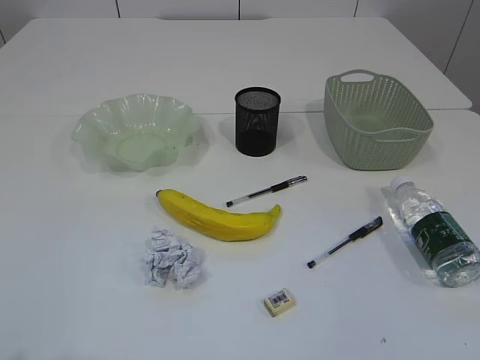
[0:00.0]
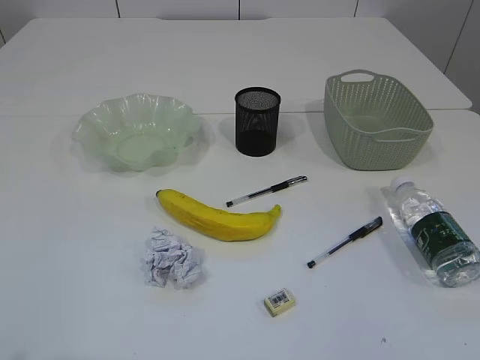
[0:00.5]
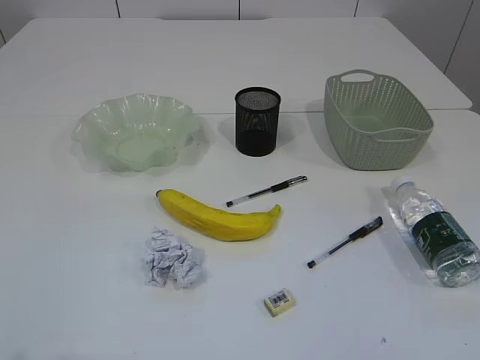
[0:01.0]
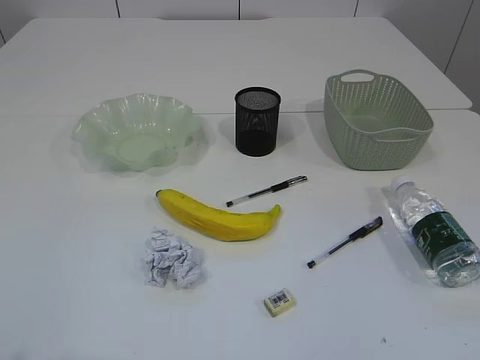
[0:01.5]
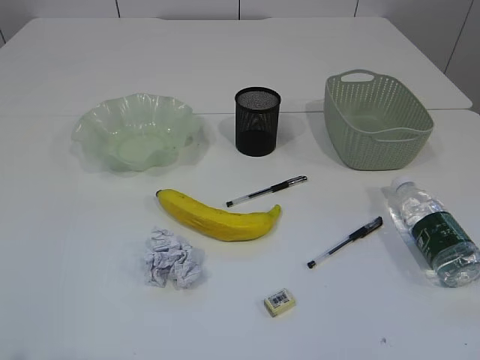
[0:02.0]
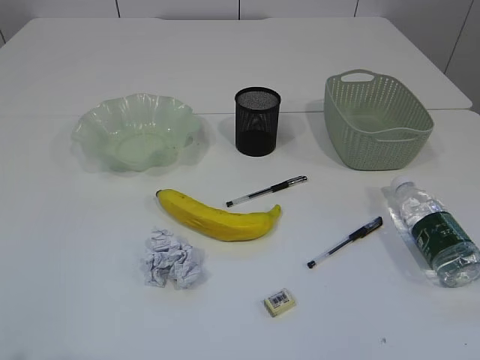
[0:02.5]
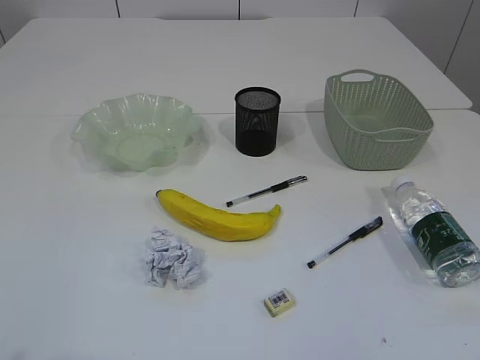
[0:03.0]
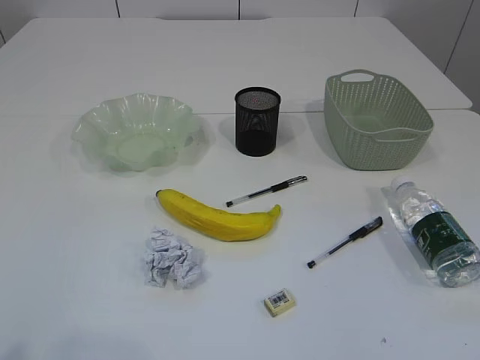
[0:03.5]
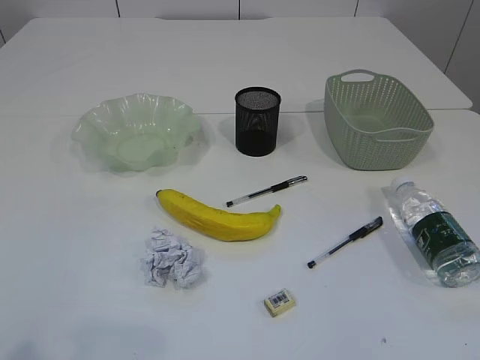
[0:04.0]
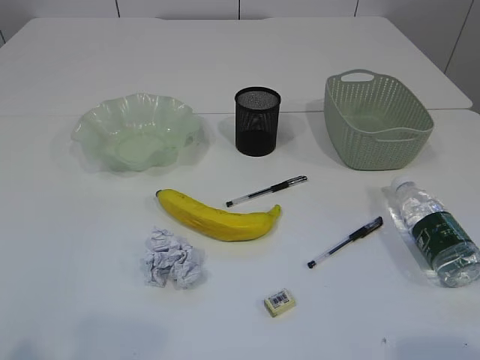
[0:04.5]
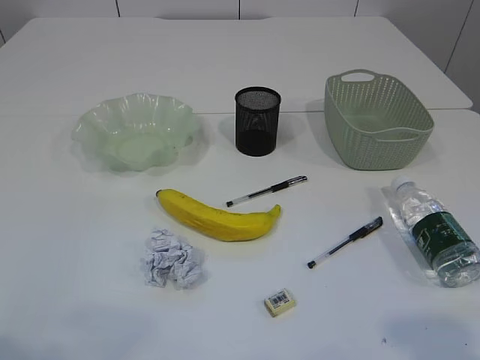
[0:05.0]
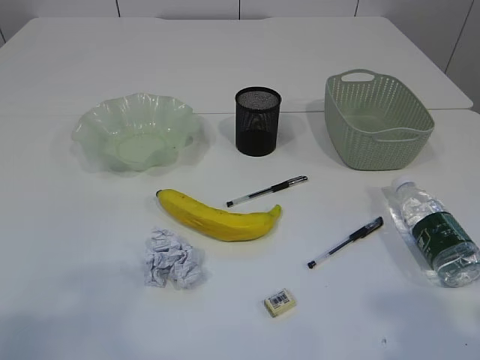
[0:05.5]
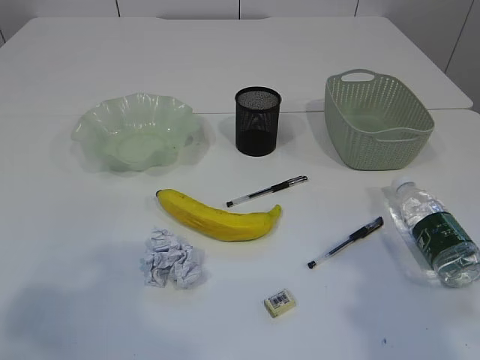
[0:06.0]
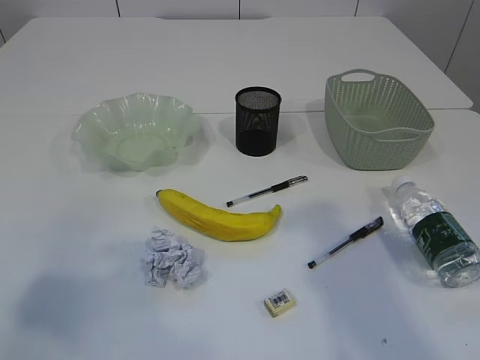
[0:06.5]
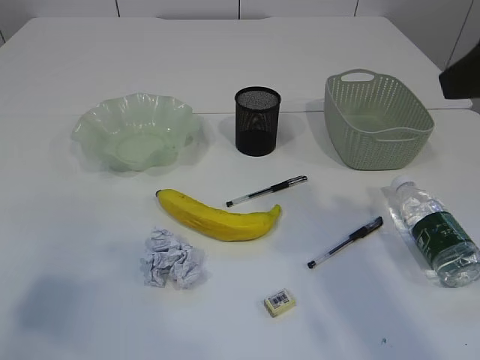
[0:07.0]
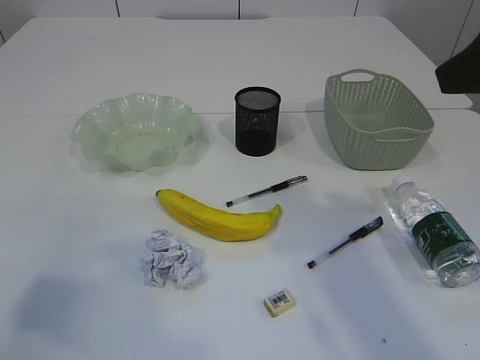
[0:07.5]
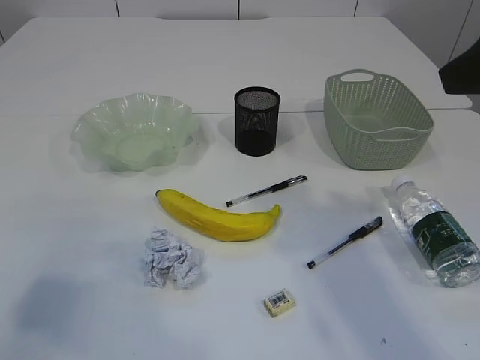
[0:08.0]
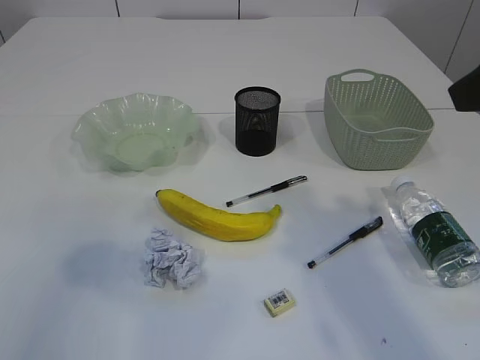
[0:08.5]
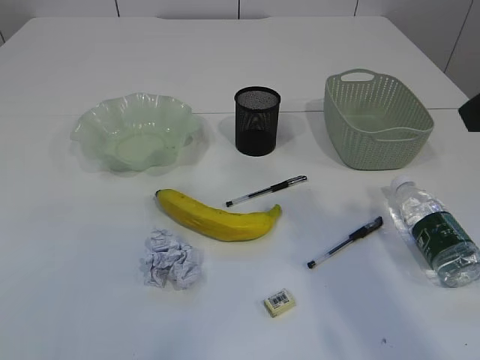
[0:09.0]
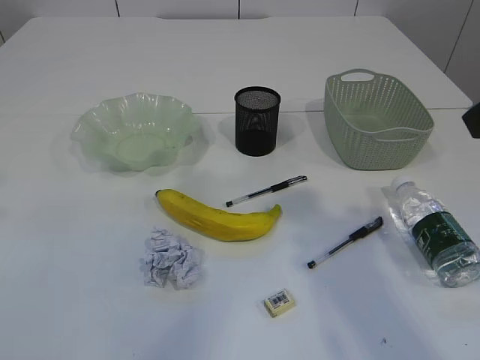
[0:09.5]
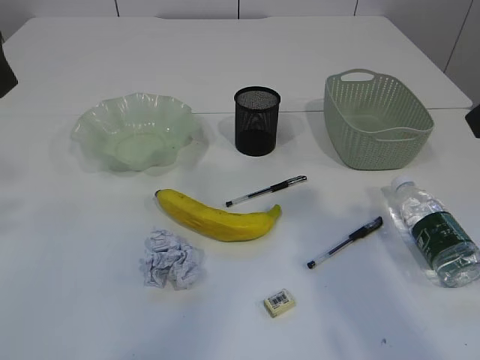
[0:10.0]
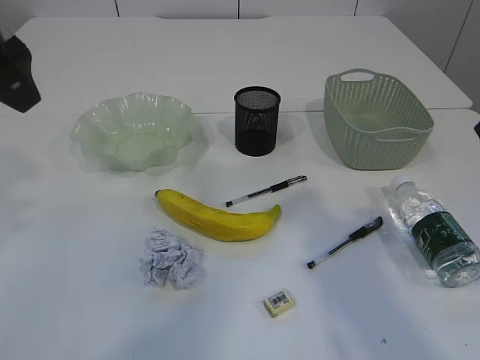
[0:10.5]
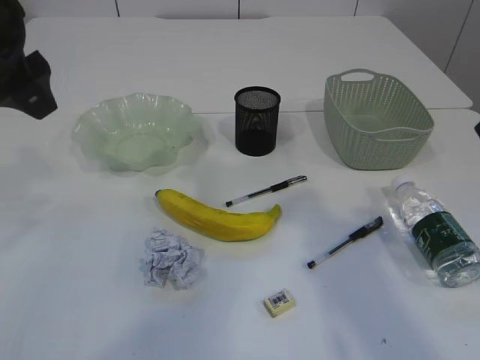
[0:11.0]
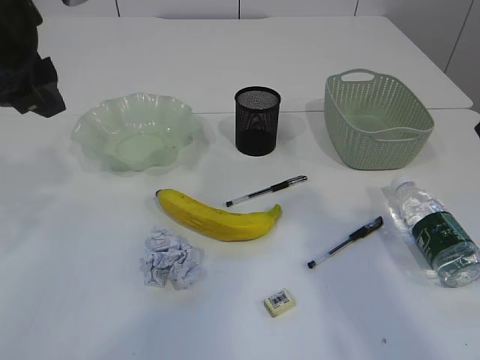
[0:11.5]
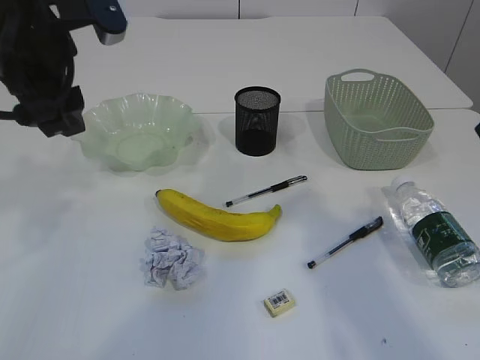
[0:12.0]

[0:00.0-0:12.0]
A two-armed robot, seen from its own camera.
0:04.0 to 0:06.0: The left gripper goes roughly 10 cm forward. Meanwhile the right gripper heads forward and upward, covering approximately 15 cm.
0:06.0 to 0:08.0: The right gripper goes approximately 10 cm forward.
0:08.0 to 0:10.0: The left gripper moves forward and to the right, approximately 20 cm.
0:10.0 to 0:12.0: The left gripper heads downward and forward, covering approximately 10 cm.

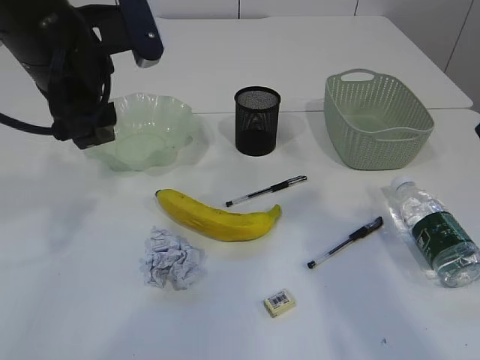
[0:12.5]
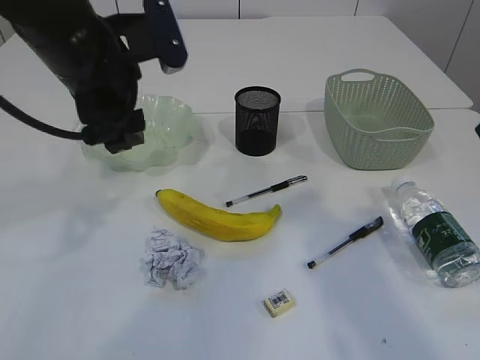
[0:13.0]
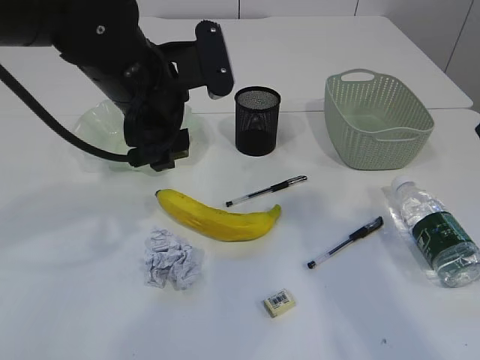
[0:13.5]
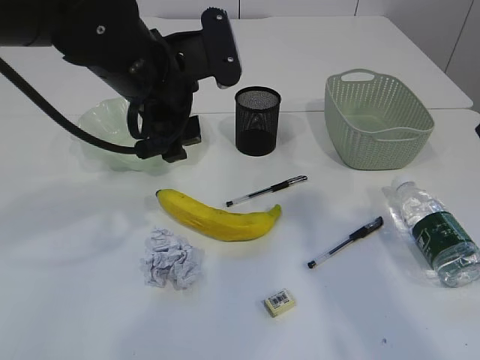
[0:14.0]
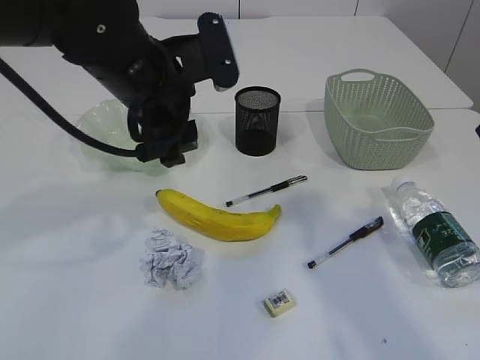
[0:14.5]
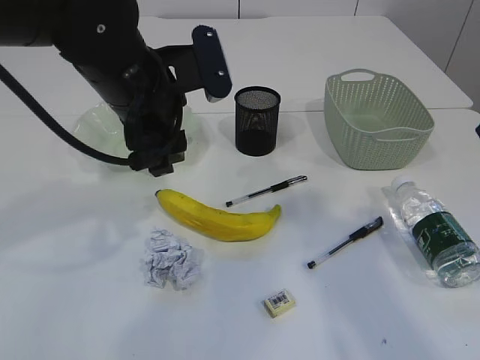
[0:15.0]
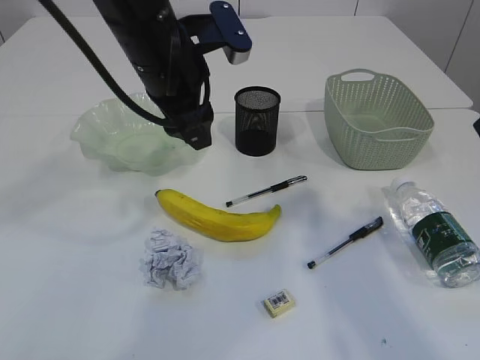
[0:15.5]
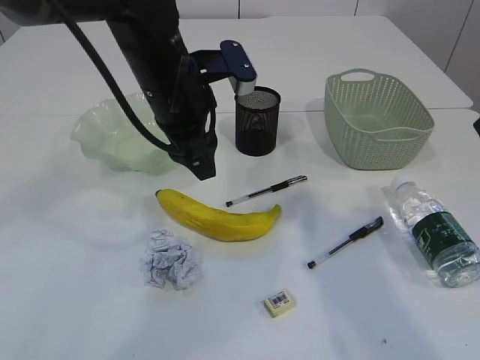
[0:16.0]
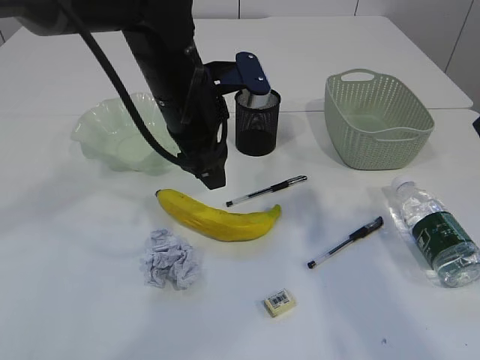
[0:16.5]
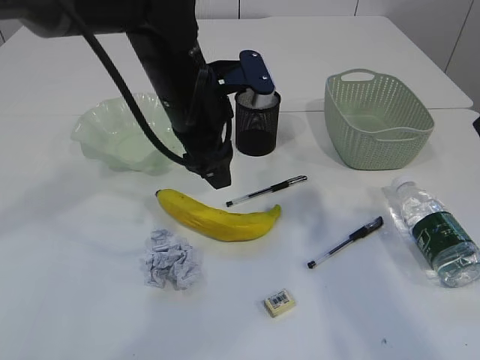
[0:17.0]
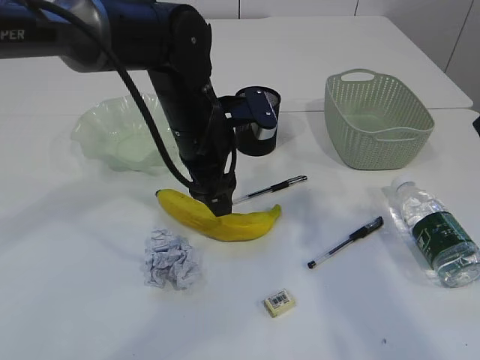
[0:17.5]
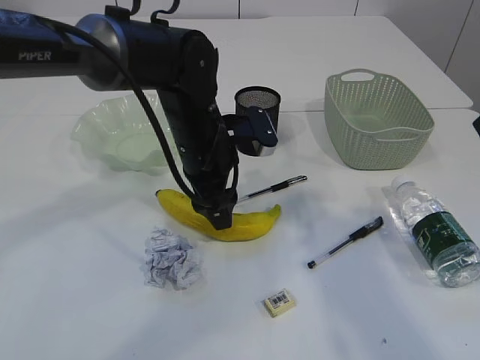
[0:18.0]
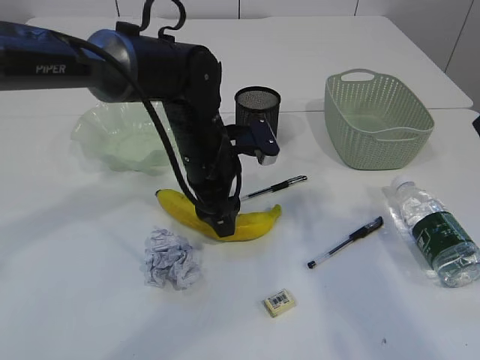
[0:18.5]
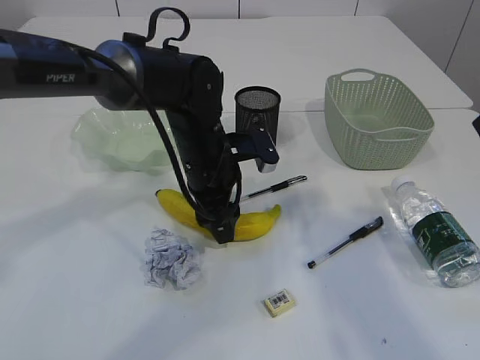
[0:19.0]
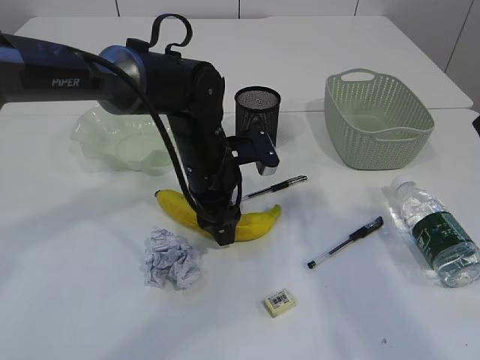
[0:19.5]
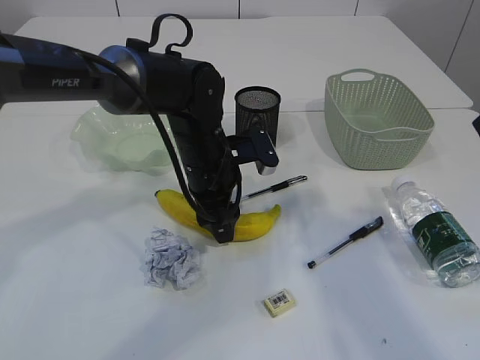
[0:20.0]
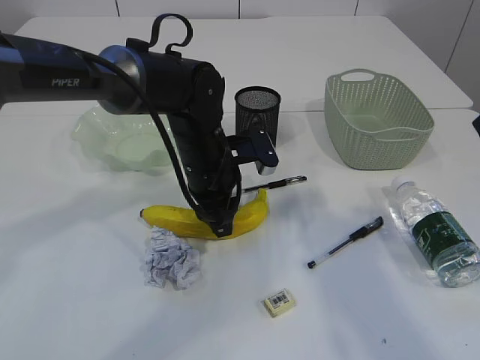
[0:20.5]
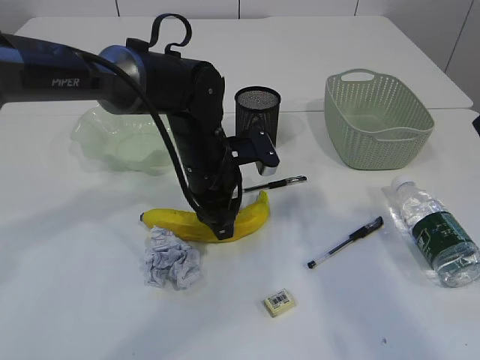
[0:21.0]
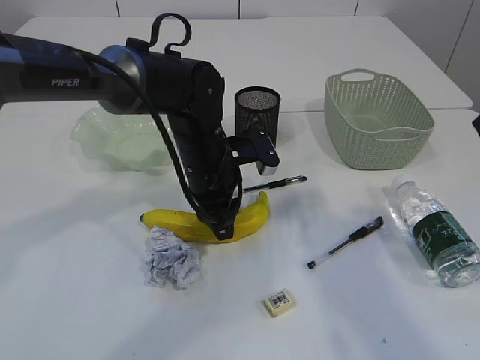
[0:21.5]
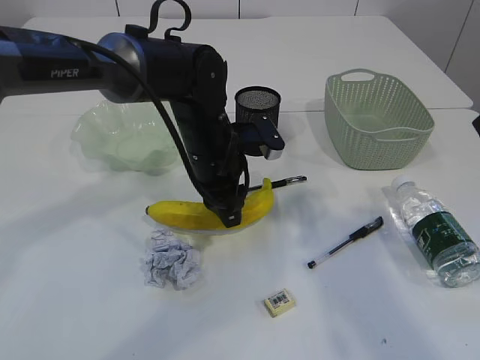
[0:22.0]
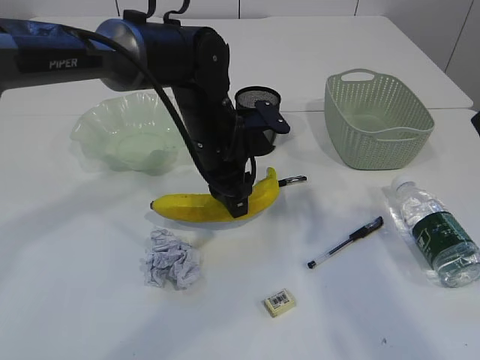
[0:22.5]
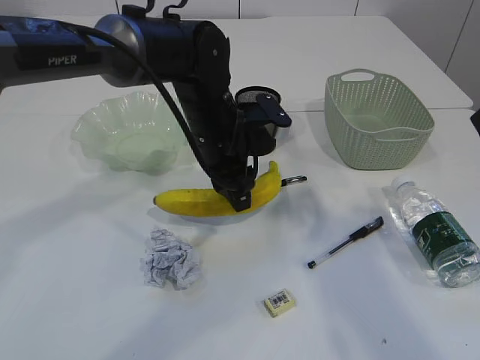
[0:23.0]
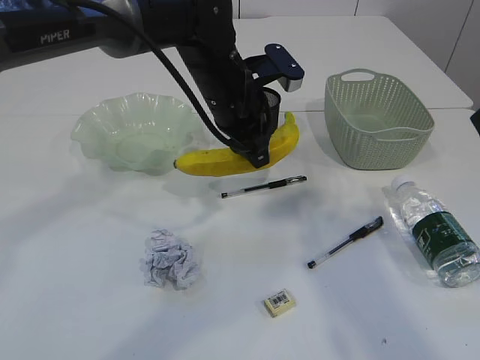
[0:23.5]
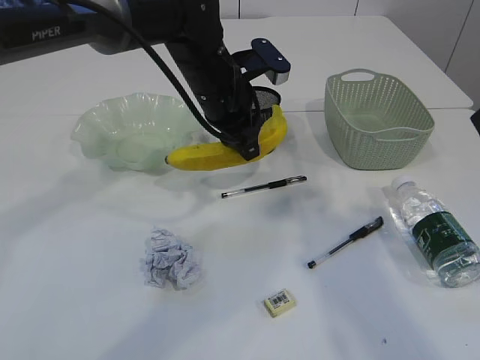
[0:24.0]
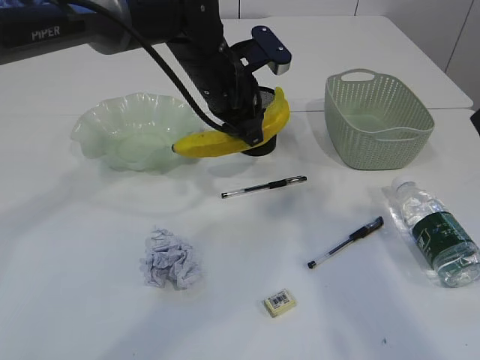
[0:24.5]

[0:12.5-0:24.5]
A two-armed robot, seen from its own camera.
0:12.5 to 0:14.5: The left gripper travels to the right by roughly 5 cm.
0:14.5 to 0:16.5: The left gripper moves approximately 5 cm.
0:16.5 to 0:18.5: The left gripper is displaced downward by approximately 10 cm.
0:18.5 to 0:20.5: The left gripper closes up.
0:20.5 to 0:22.5: The grippers stay close to where they were, moving slightly.
0:22.5 to 0:24.5: The left gripper goes about 5 cm upward.

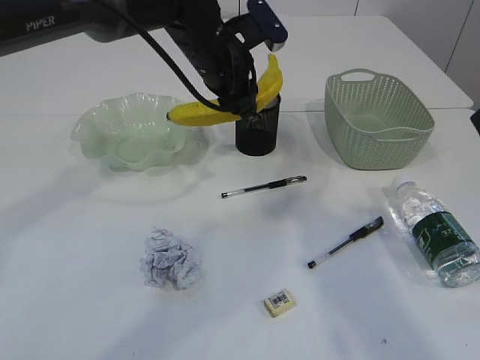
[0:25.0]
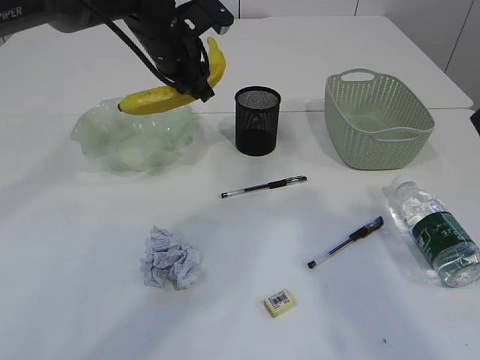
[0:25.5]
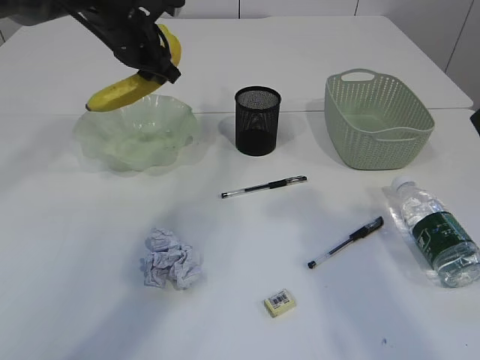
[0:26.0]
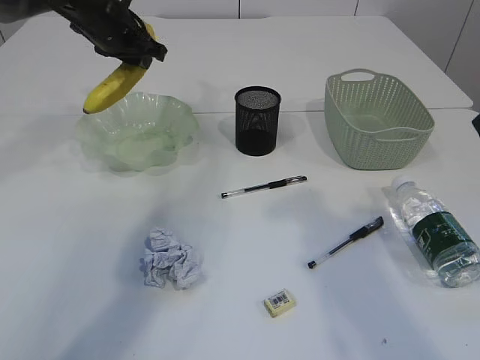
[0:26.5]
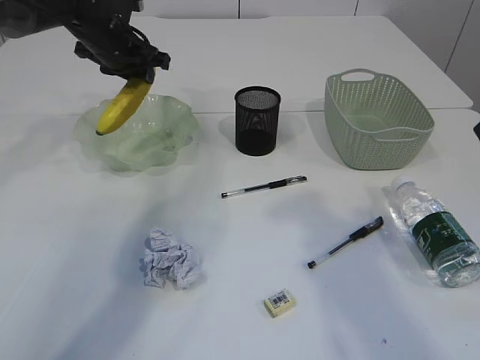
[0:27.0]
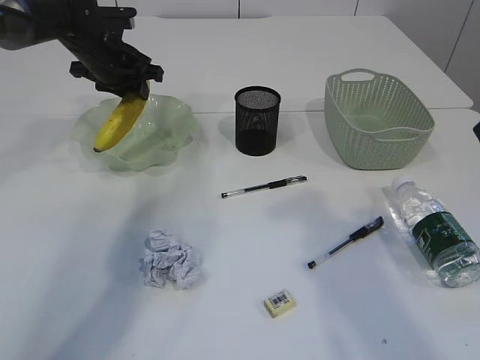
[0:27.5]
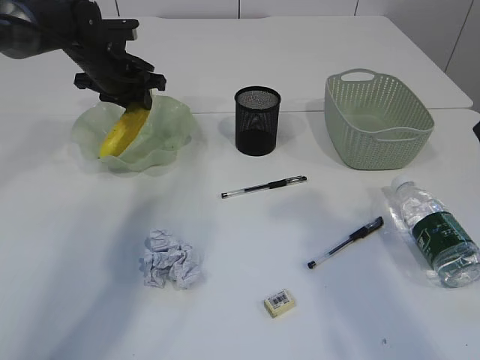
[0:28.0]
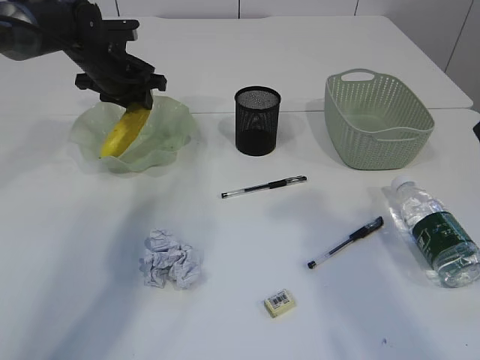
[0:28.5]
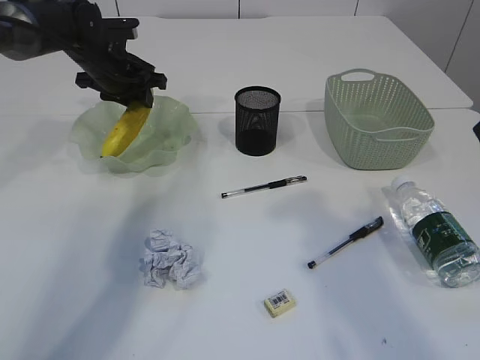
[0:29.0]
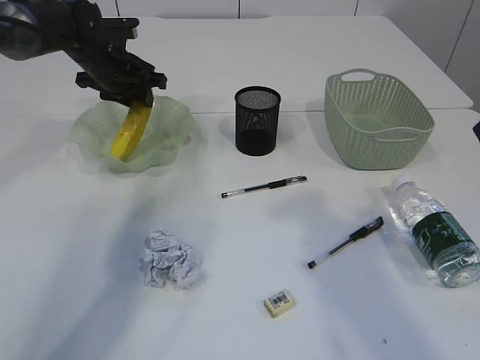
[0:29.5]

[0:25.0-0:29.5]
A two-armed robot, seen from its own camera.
0:25.0 to 0:27.0: The left gripper moves to the left and forward, approximately 15 cm.
0:27.0 to 0:29.5: The grippers stay close to where they were, moving slightly.
